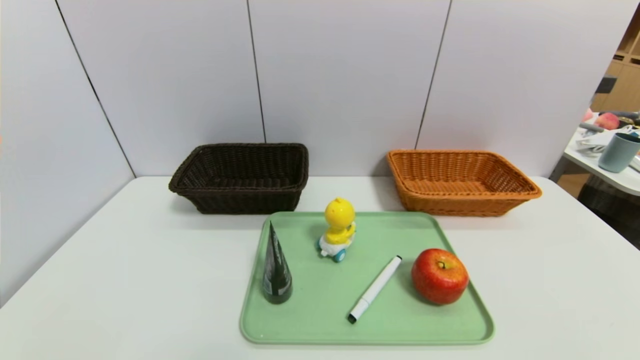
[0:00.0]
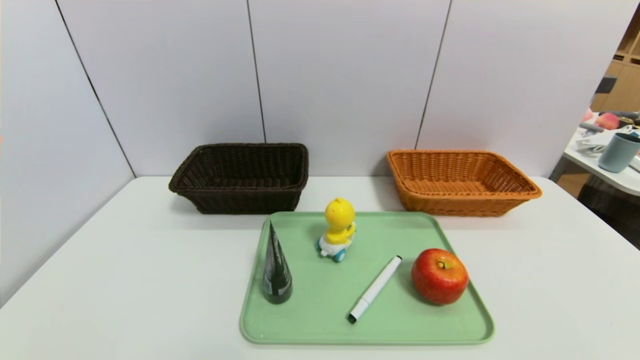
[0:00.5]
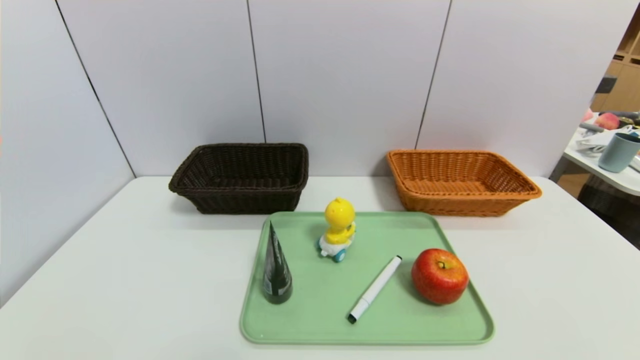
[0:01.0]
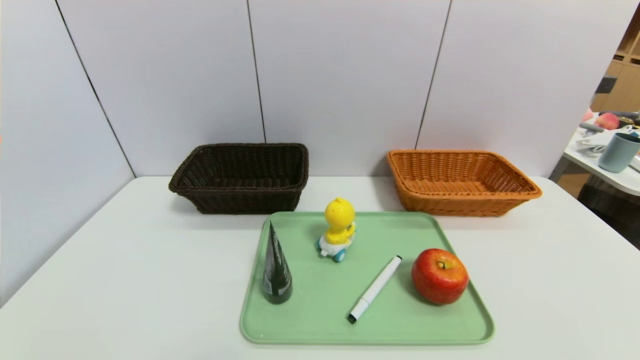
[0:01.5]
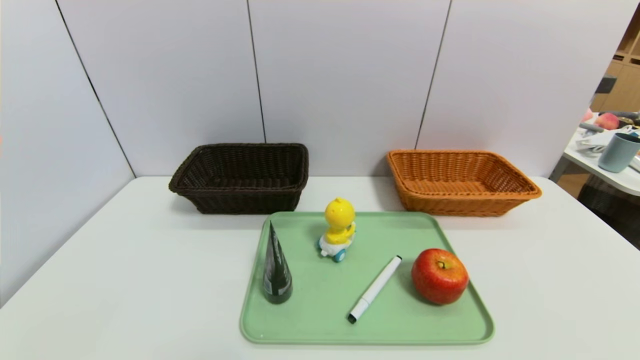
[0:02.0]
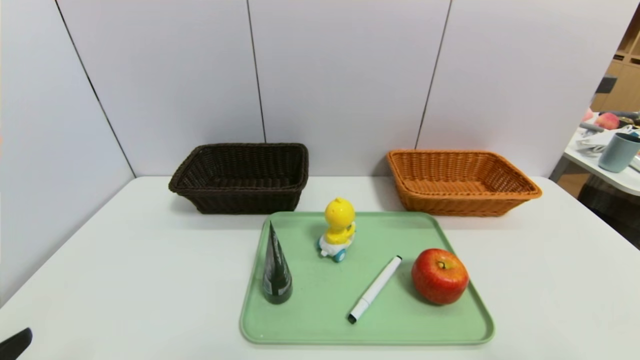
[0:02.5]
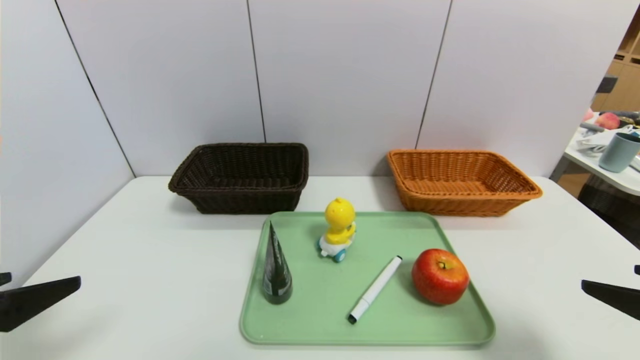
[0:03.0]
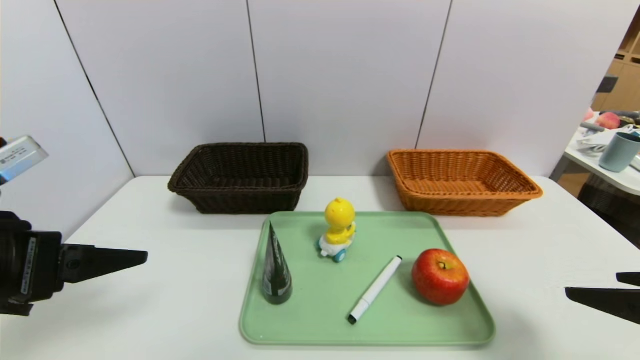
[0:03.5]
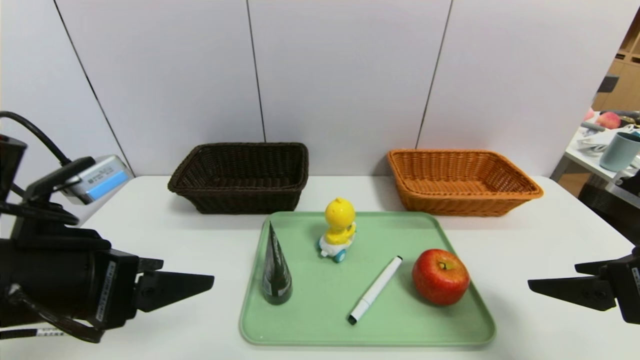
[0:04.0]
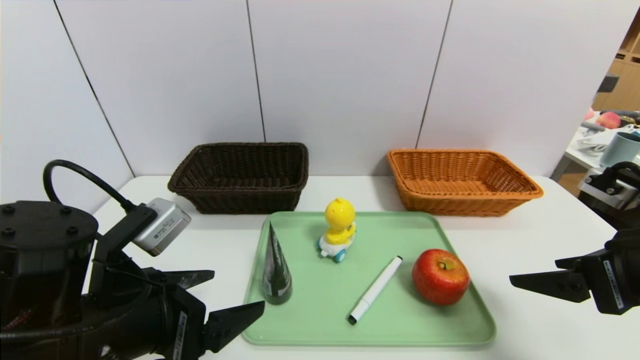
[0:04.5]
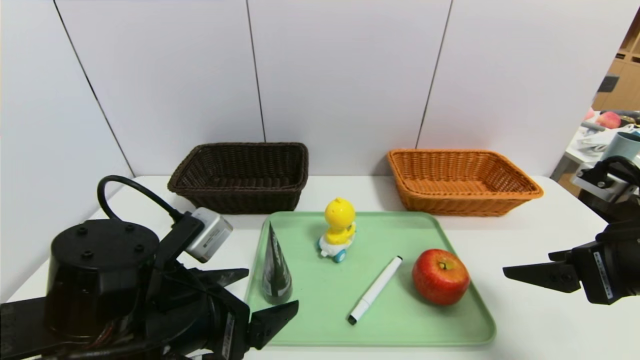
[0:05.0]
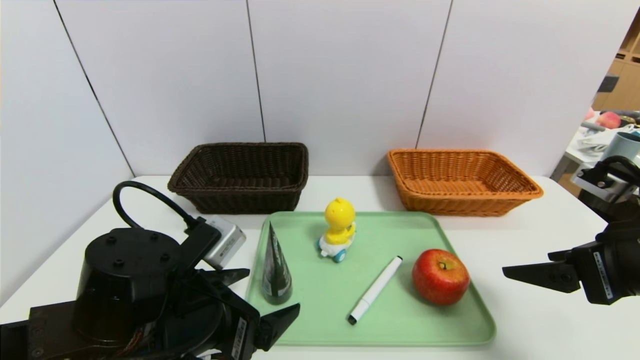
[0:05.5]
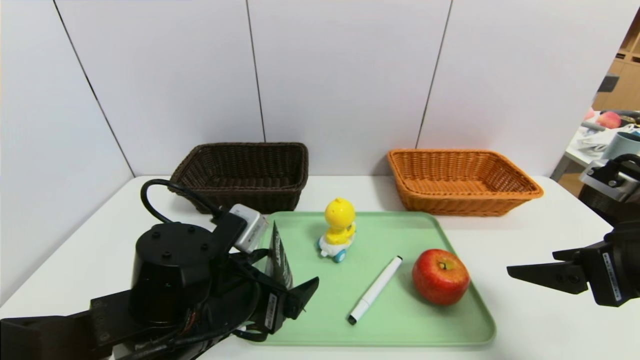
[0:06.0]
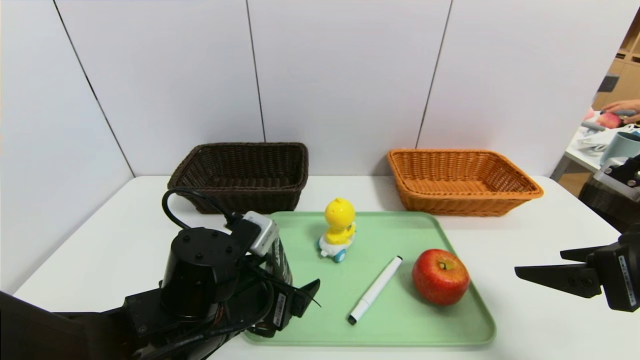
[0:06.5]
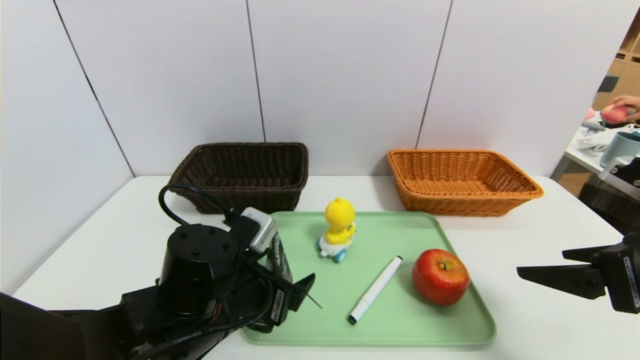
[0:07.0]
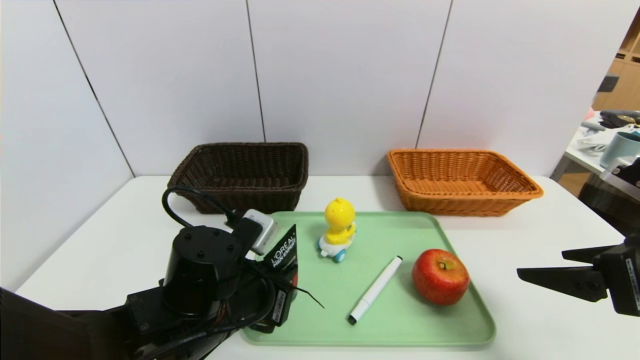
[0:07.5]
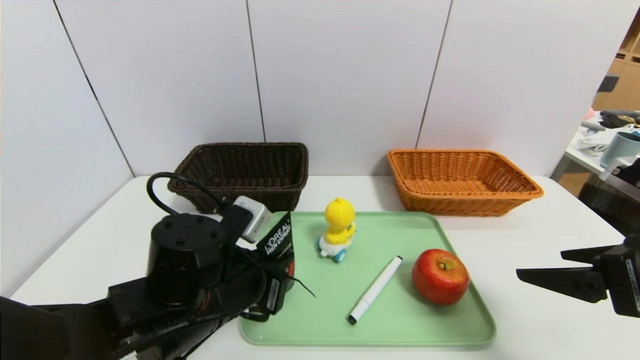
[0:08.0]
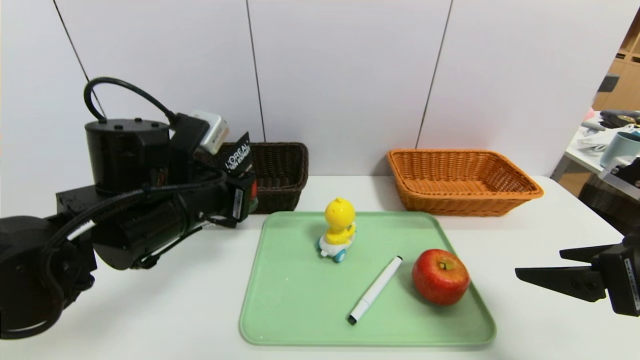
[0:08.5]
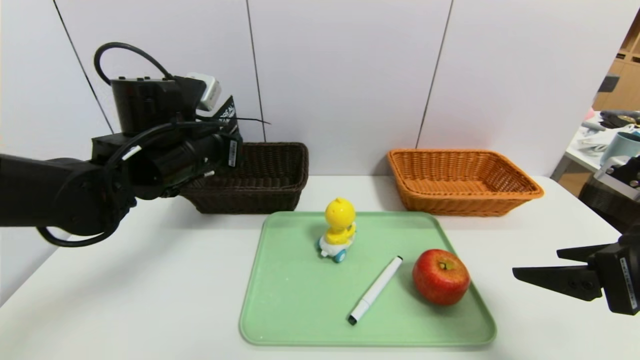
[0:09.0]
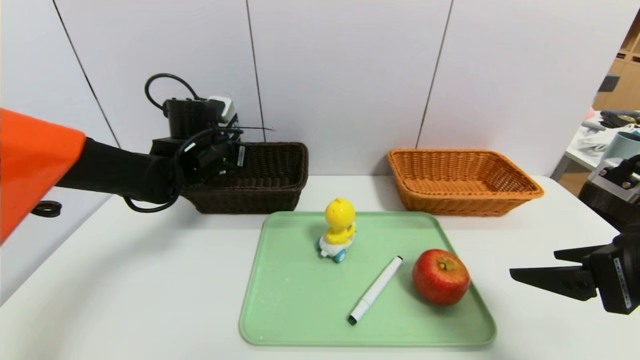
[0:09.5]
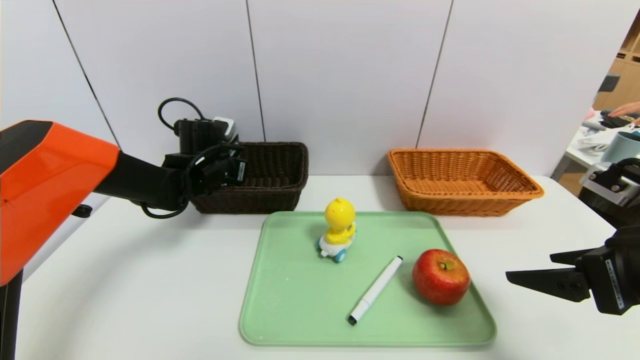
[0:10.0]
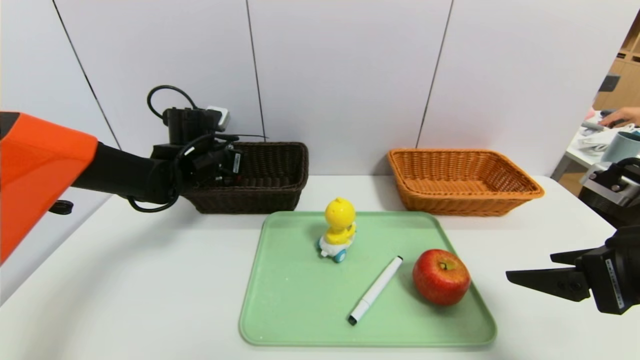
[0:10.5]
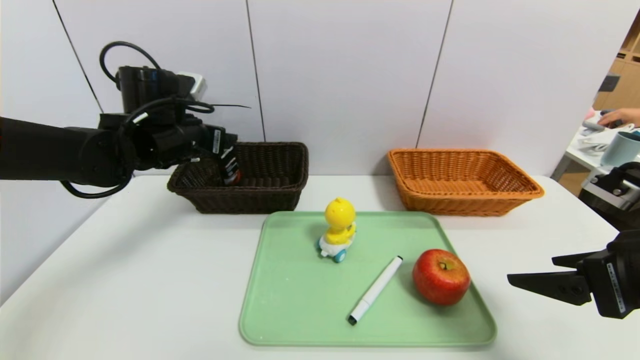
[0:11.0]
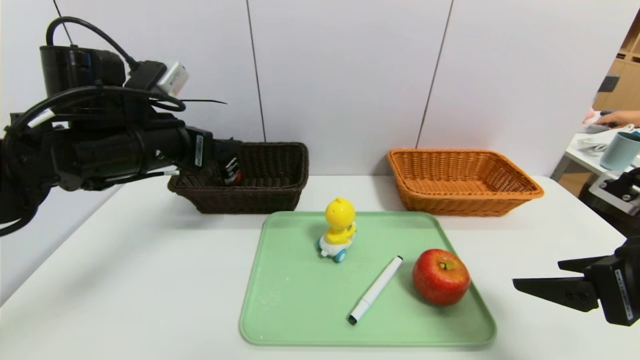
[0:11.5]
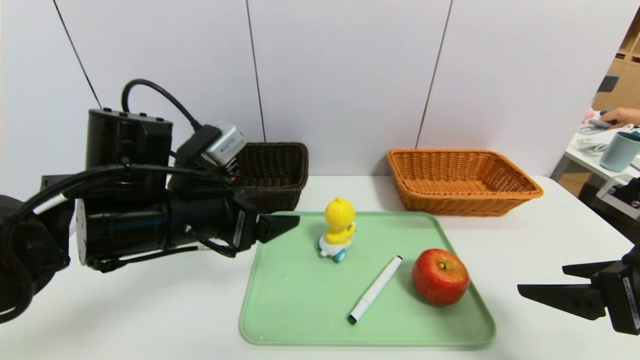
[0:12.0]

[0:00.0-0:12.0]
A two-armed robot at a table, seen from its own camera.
Task of the whole recording: place the food in the right basket with the right gripper, and place the non food items in the left basket with the left gripper.
Step, 0:00.0 to 0:11.5: Grasp the soft cleanser and put it in the left basket.
0:02.0 to 0:04.0: The right gripper is displaced forward and upward by some 20 cm, while the left gripper shifts about 20 cm forward, upward and to the right.
0:04.0 to 0:06.0: The left gripper travels downward and to the right by some 15 cm.
0:06.0 to 0:08.0: The left gripper closes its fingers.
0:08.0 to 0:10.0: The left gripper shifts some 25 cm forward.
0:10.0 to 0:12.0: The left gripper goes some 20 cm backward, and opens up.

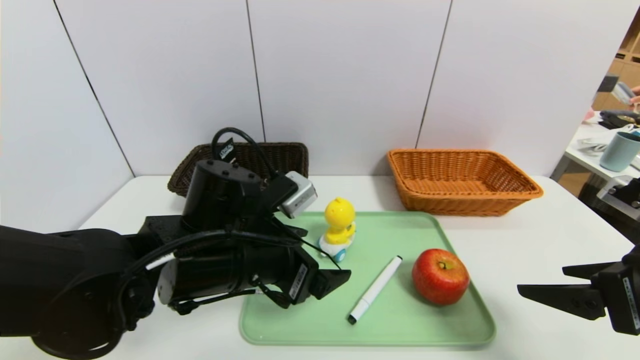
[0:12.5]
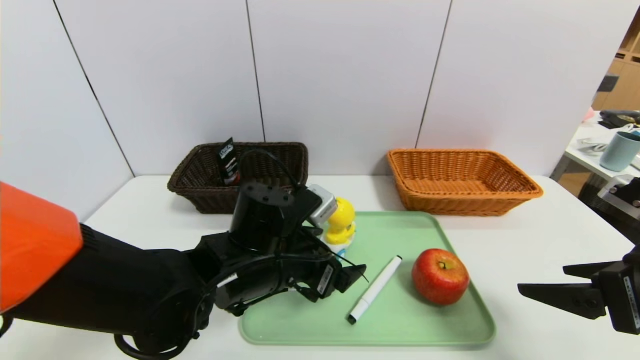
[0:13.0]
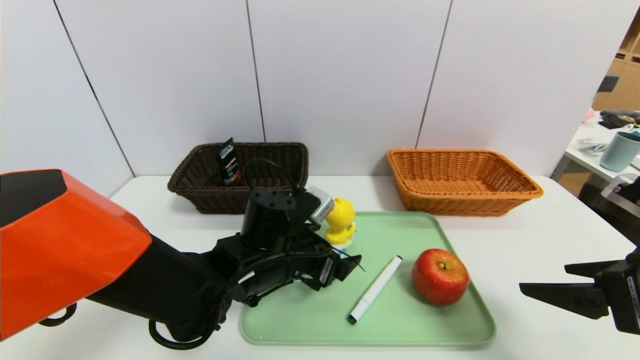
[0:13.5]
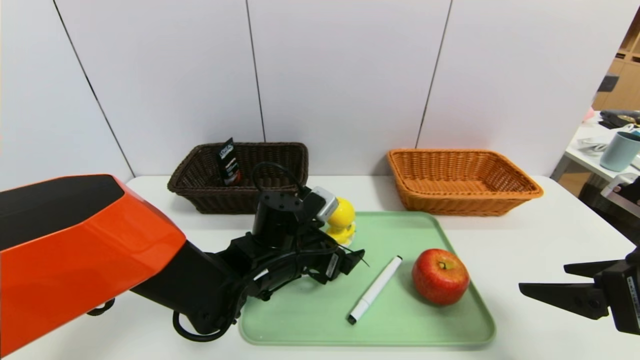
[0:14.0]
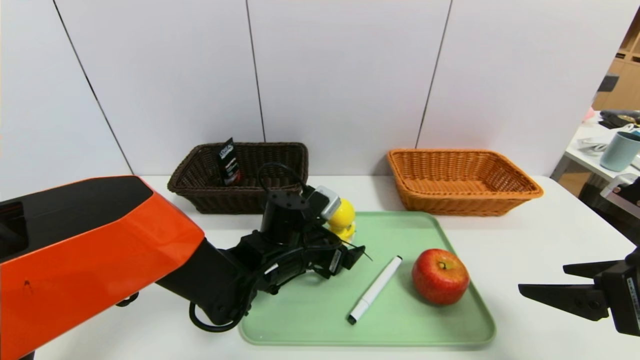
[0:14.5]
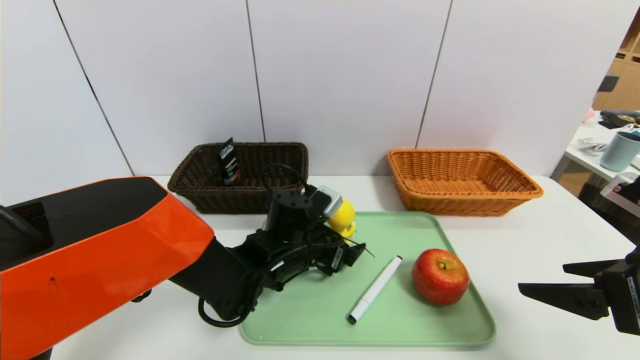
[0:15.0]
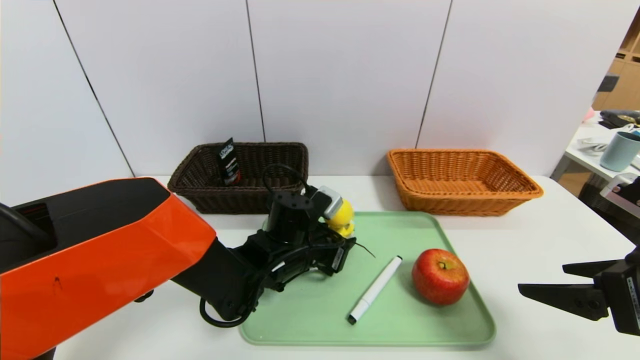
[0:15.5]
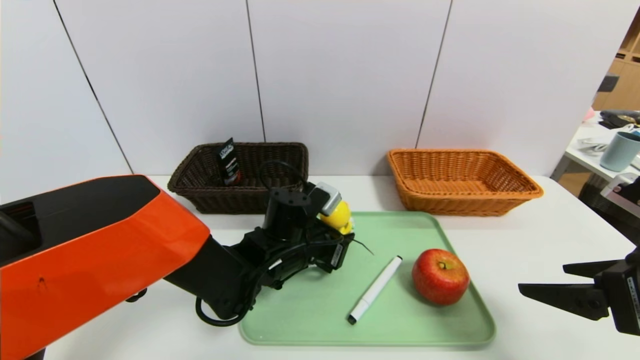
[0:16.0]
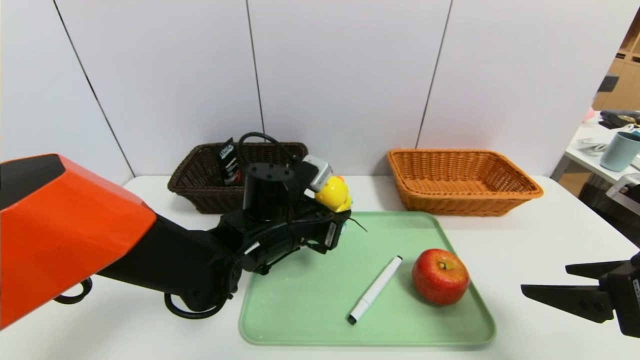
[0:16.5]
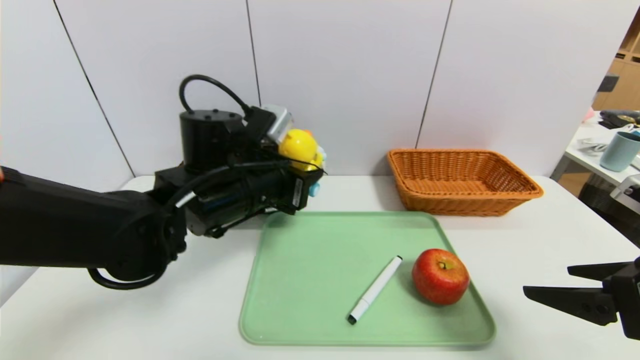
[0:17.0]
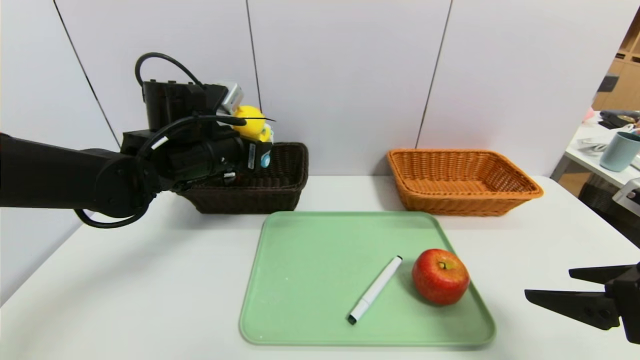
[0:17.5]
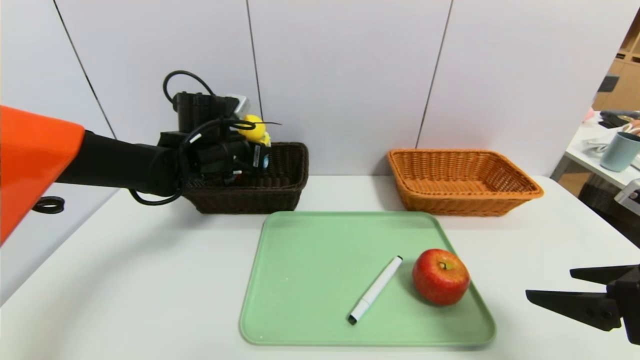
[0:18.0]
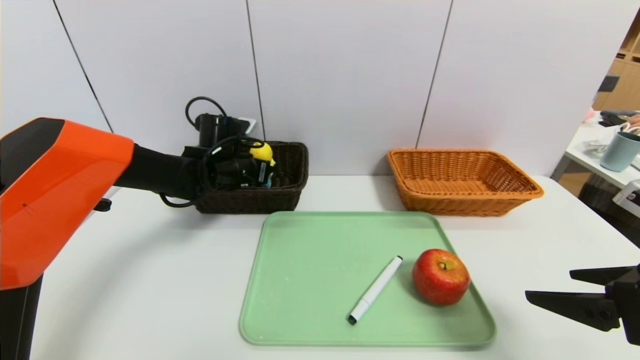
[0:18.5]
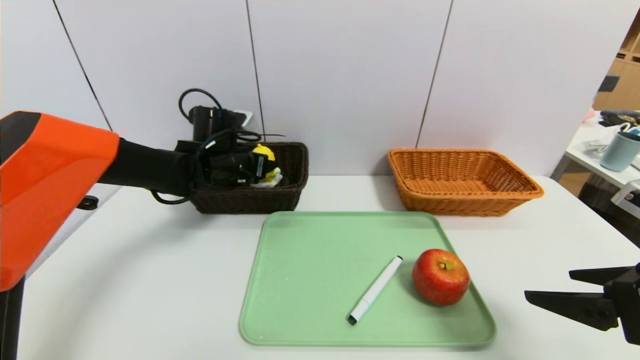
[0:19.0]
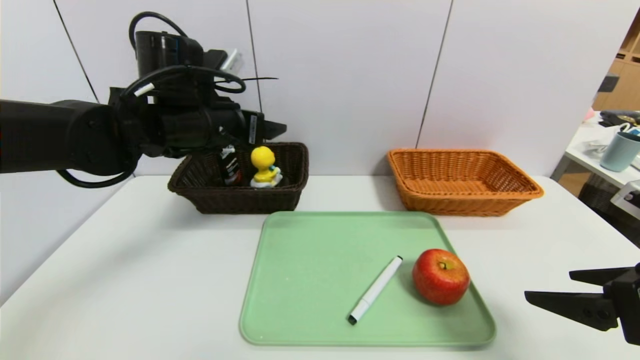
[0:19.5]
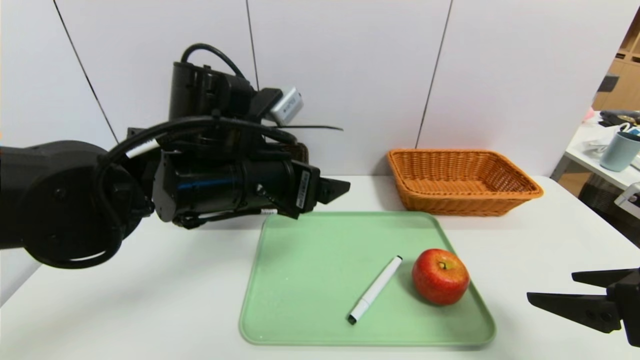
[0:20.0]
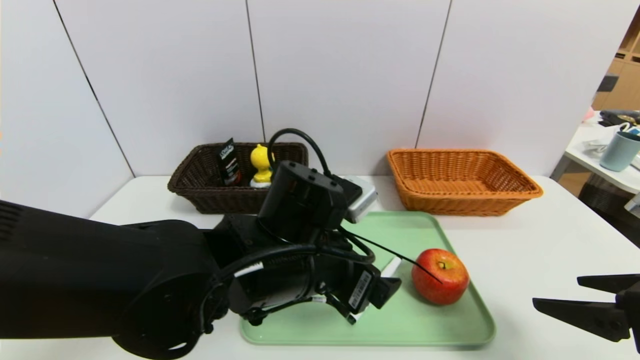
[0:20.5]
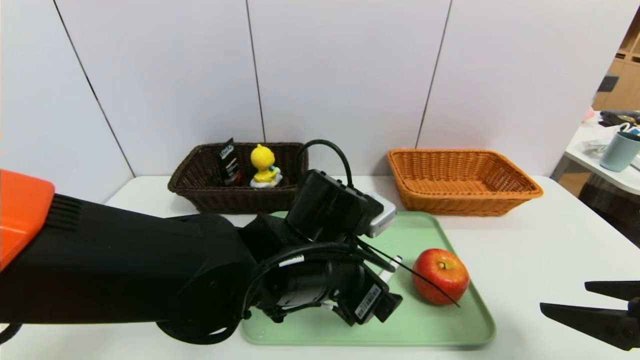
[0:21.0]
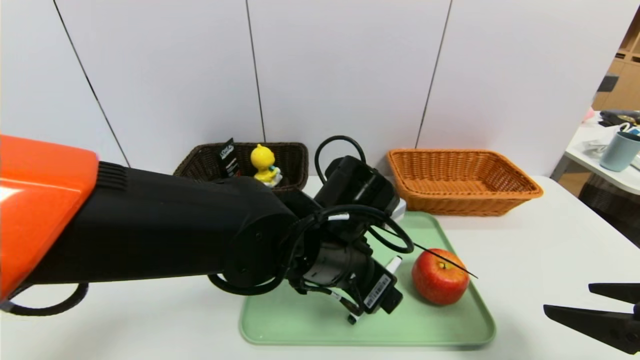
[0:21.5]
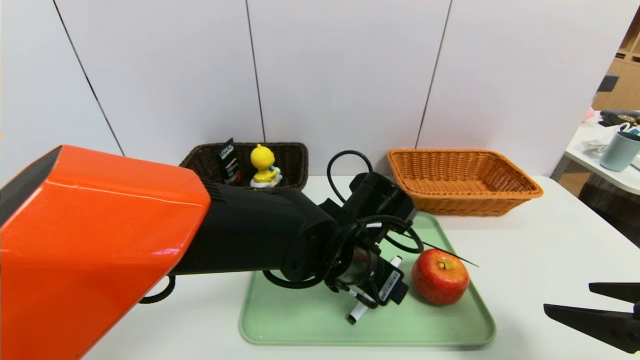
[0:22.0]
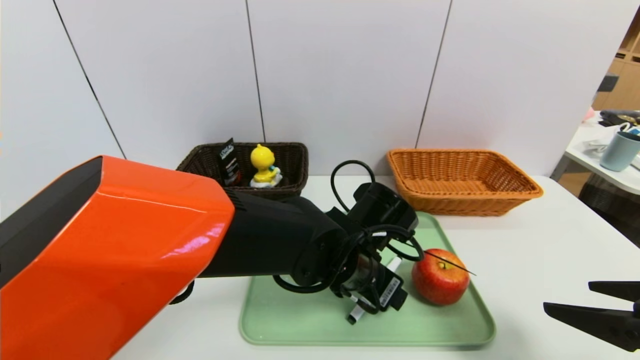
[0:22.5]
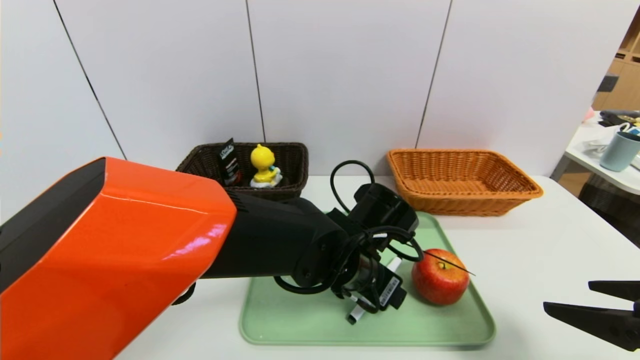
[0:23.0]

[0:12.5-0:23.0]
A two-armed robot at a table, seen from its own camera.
Task of the whole recording: place the food in the right basket with the right gripper, and place the non food items in the left basket with the left gripper.
Step, 0:12.5 to 0:19.5: Grasp the yellow duck and put it in the left basket.
0:12.5 to 0:14.5: The left gripper goes some 10 cm downward and forward.
0:14.5 to 0:16.5: The left gripper is displaced upward by roughly 5 cm, and closes up.
0:16.5 to 0:19.0: The left gripper shifts roughly 20 cm forward and to the left, and opens up.
0:19.0 to 0:21.0: The left gripper goes approximately 25 cm backward and to the right.
0:21.0 to 0:23.0: The left gripper heads to the right, covering approximately 5 cm.
